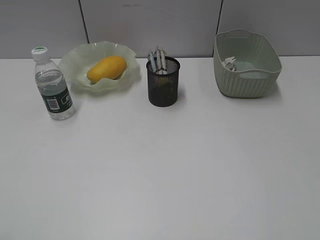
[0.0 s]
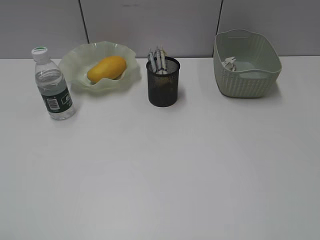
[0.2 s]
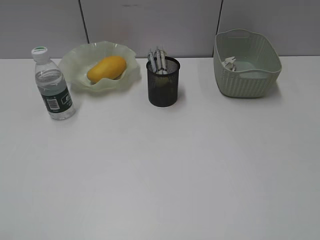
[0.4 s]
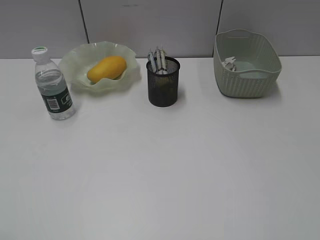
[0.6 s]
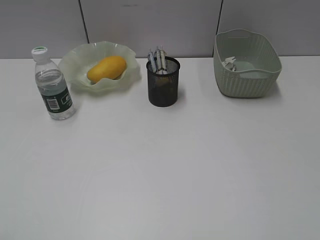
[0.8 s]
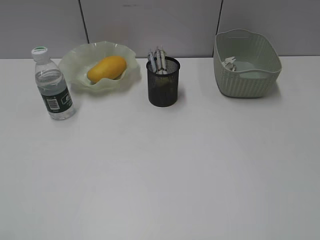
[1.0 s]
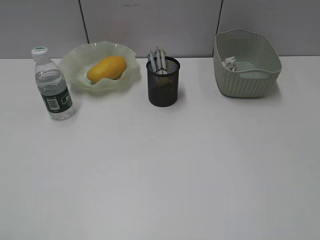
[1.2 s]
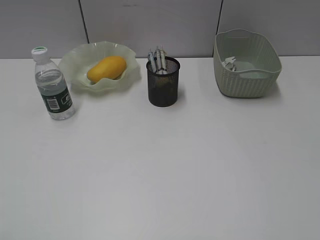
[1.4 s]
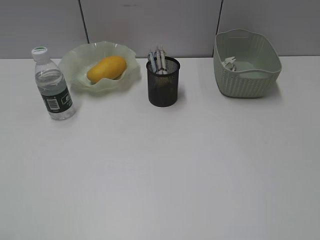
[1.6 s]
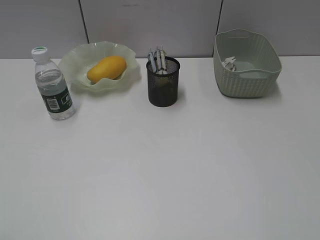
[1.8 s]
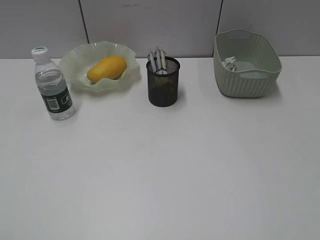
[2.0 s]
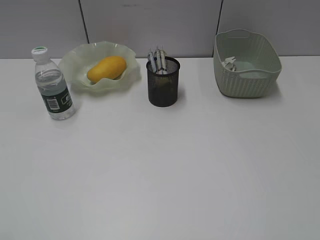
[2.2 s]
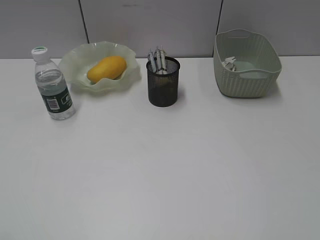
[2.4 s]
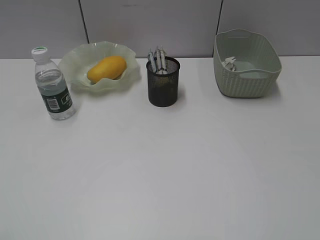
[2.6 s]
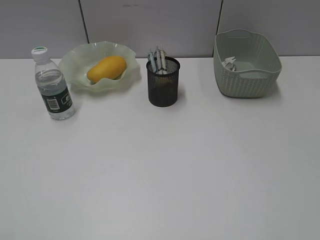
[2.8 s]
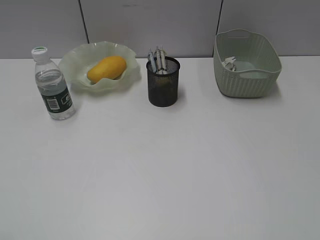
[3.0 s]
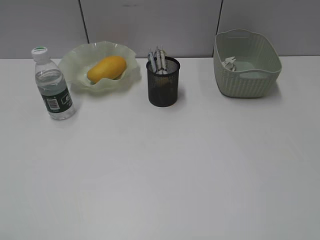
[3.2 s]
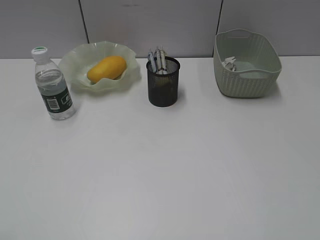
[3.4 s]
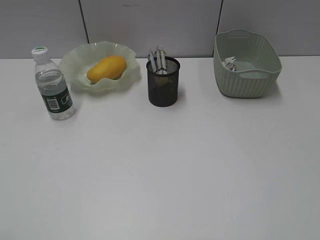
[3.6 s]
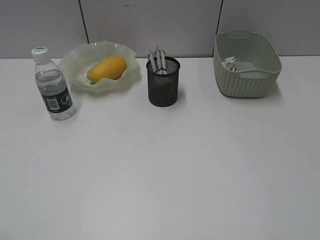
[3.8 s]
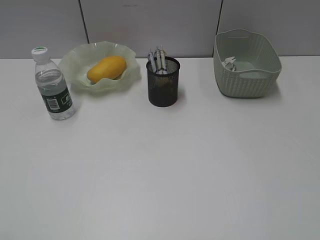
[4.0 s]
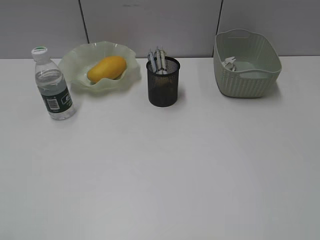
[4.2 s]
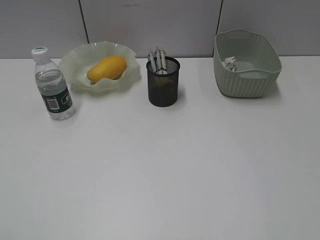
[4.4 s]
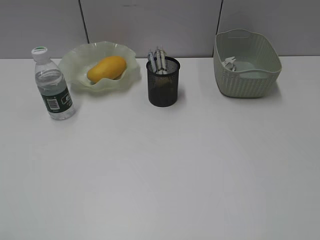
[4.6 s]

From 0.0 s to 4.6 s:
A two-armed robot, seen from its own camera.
From 0.0 s to 4.6 s: Neither gripper changes place.

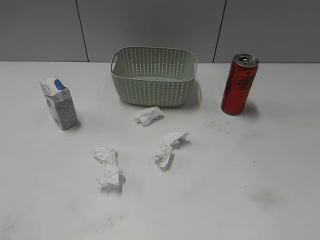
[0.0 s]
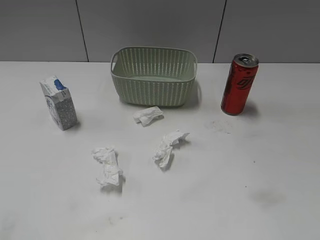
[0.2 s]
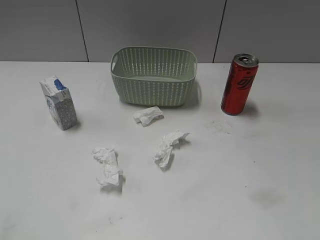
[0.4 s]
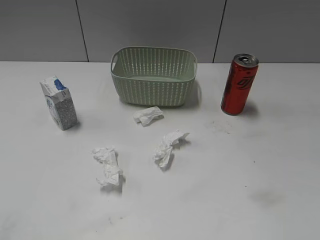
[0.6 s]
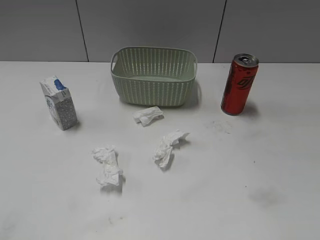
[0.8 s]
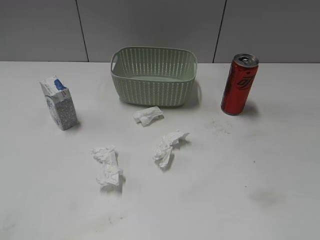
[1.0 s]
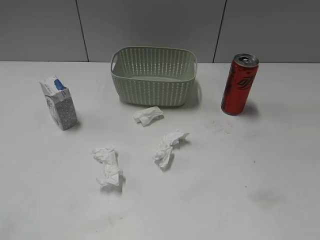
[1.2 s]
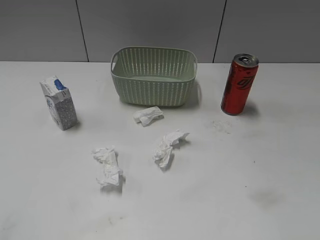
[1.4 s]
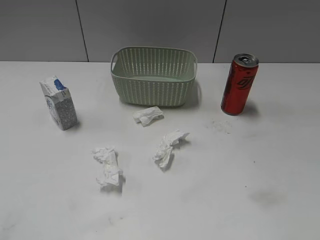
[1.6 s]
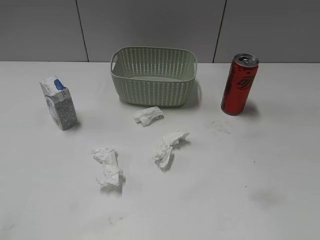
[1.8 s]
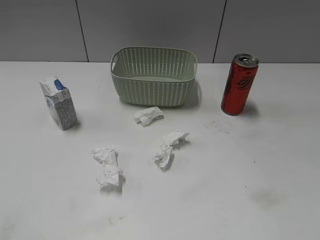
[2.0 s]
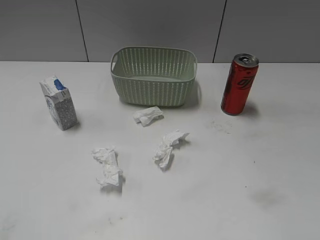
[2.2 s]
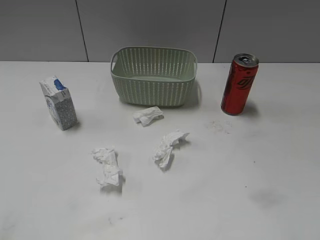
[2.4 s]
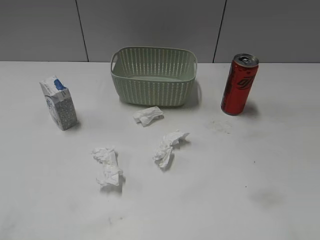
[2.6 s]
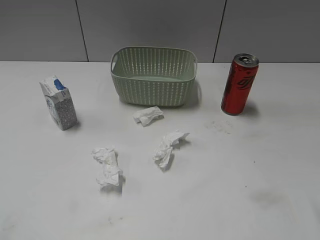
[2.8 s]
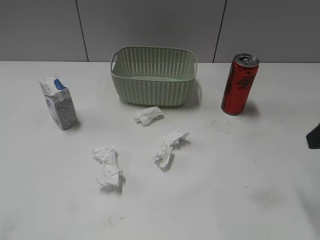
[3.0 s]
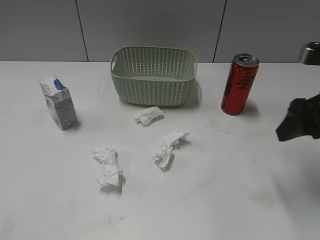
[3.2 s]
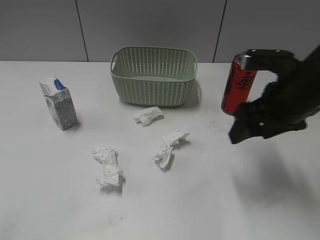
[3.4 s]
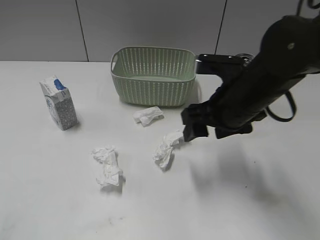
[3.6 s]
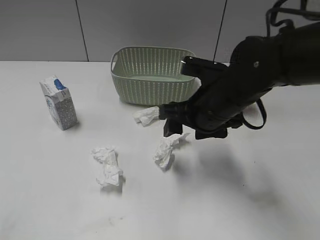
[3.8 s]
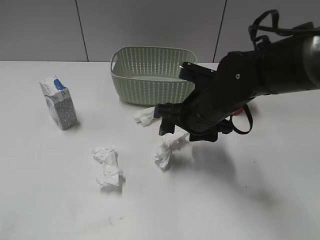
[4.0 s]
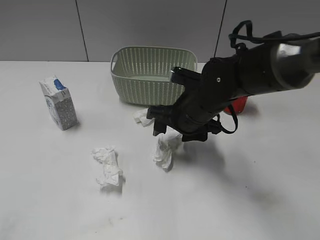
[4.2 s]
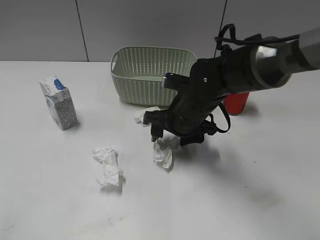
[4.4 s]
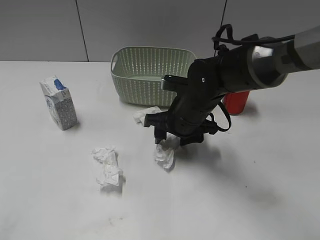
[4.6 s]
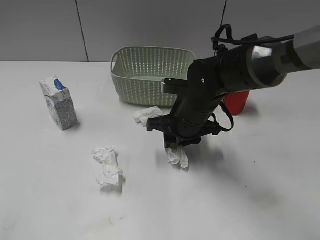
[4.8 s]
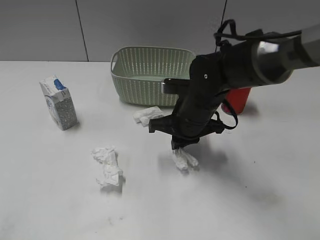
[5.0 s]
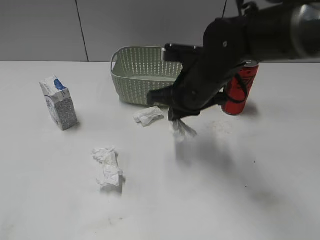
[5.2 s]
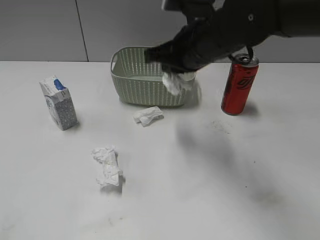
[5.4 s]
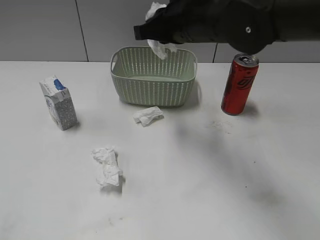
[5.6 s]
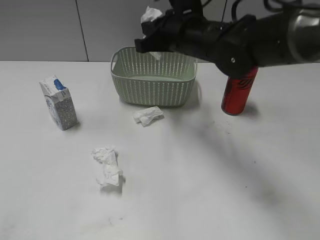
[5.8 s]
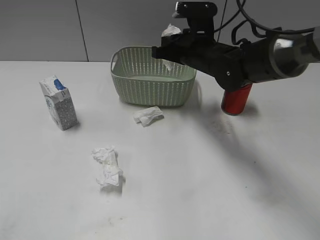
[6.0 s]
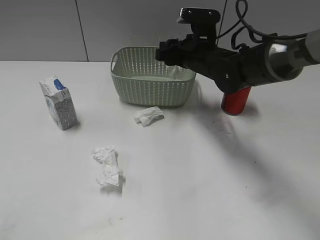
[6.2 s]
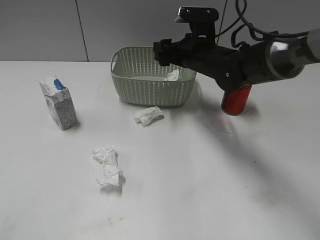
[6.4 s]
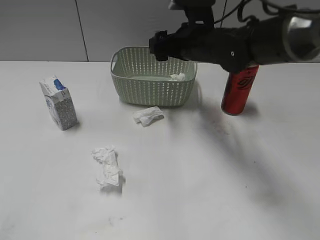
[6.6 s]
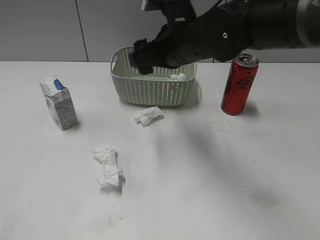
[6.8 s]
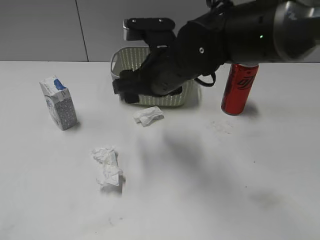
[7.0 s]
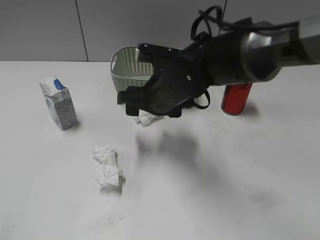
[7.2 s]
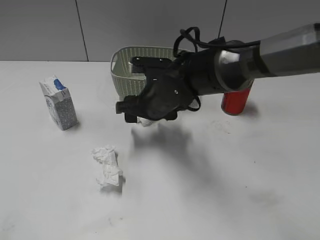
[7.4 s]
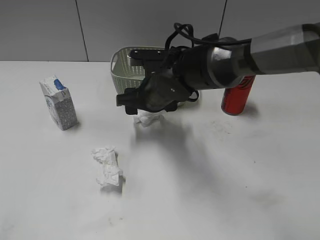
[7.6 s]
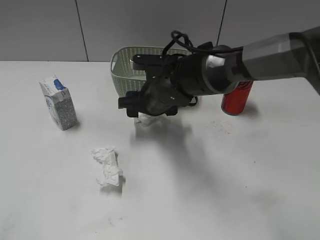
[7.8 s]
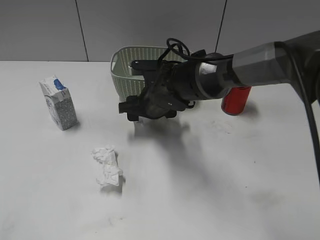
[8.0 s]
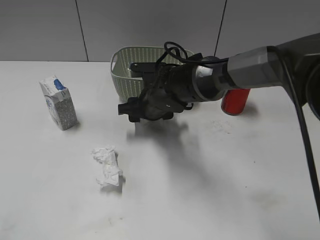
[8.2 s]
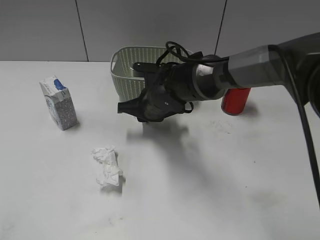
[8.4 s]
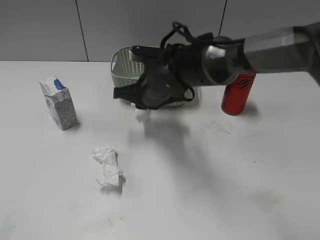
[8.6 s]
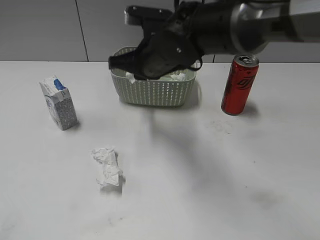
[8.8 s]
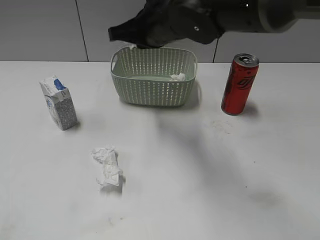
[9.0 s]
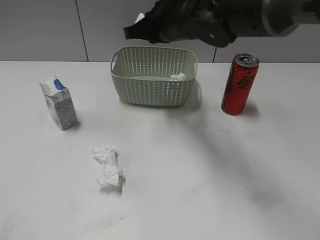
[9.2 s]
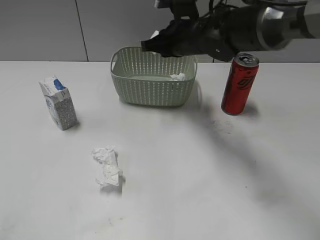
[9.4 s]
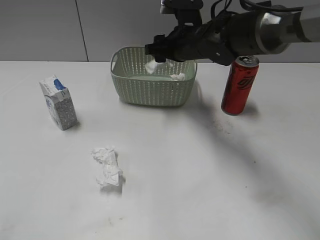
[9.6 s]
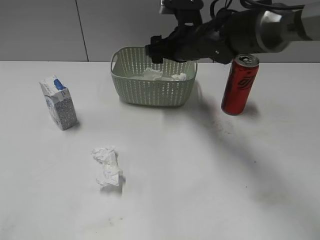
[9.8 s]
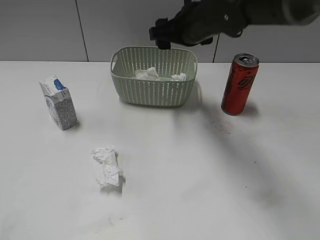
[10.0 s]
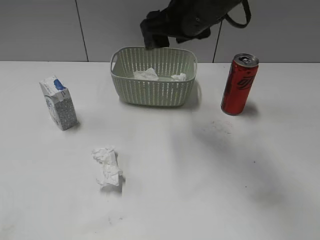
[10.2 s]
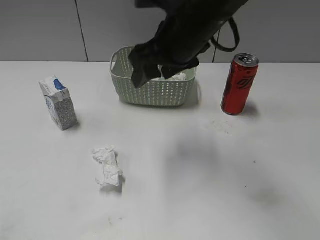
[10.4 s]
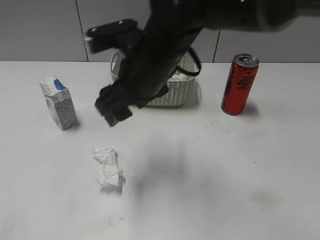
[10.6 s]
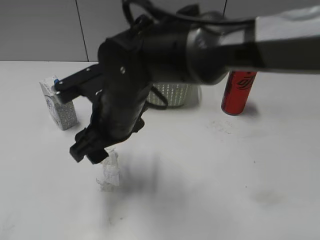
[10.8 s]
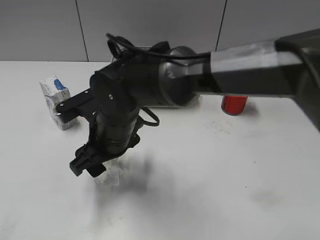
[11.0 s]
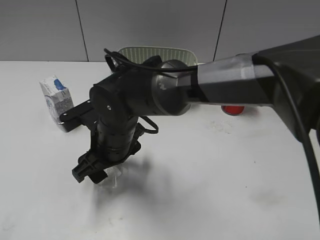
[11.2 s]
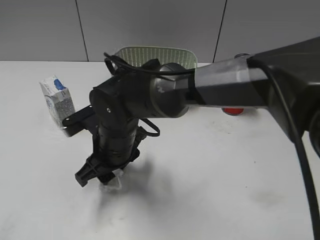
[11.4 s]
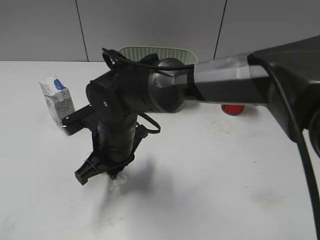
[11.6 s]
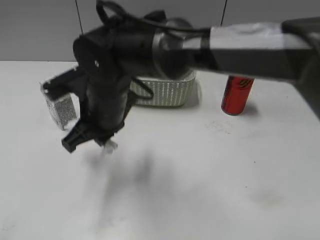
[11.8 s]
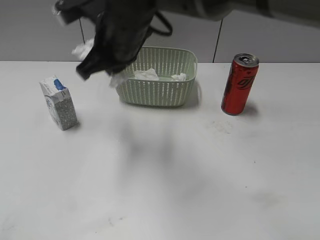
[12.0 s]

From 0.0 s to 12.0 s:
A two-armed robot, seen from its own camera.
Step, from 3.0 s to 5.0 s: Grasp the waste paper with right gripper.
Step, from 5.2 s to 6.6 s: Place the waste paper in the basket with right gripper.
Step, from 6.8 s to 8.6 s: Grasp the waste paper with right gripper.
Step, from 8.8 s to 9.8 s: Place the waste paper in the basket with right gripper.
Step, from 10.0 s to 11.6 s: Grasp the waste paper with right gripper.
From 1.6 s to 3.0 s: The right gripper goes about 20 cm forward.
From 3.0 s to 4.4 s: The right gripper goes some 30 cm to the left, downward and forward.
From 4.4 s to 6.0 s: The right gripper moves forward and upward, roughly 10 cm, and closes.
From 6.0 s to 7.6 s: The right gripper moves to the left and backward, about 10 cm, and opens.
From 7.6 s to 9.0 s: The right gripper heads upward, covering roughly 10 cm, and closes its fingers.
From 9.0 s to 10.4 s: The right gripper travels downward and back again, some 5 cm each way, and opens its fingers.
From 10.4 s to 12.0 s: The right gripper is displaced to the left by approximately 10 cm, travels downward and back again, some 15 cm each way, and closes.

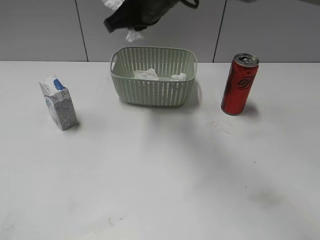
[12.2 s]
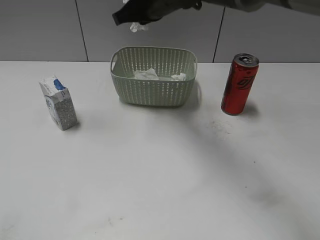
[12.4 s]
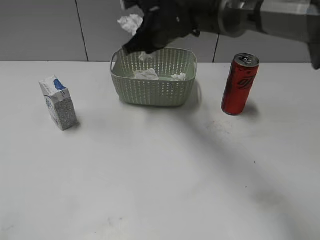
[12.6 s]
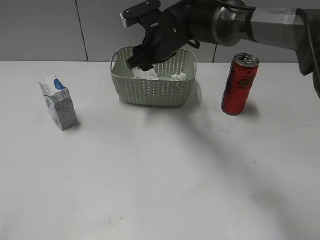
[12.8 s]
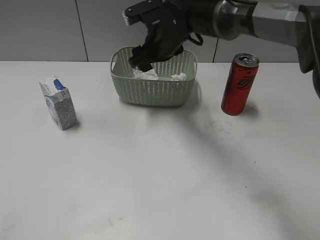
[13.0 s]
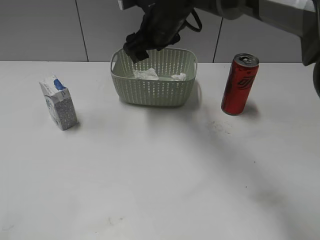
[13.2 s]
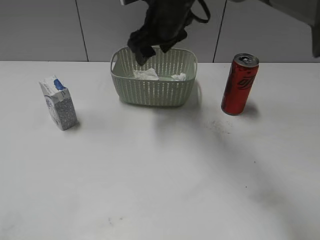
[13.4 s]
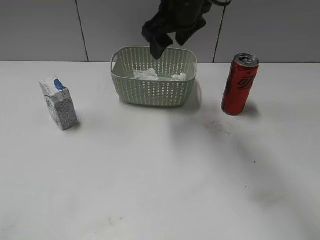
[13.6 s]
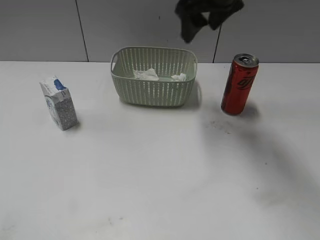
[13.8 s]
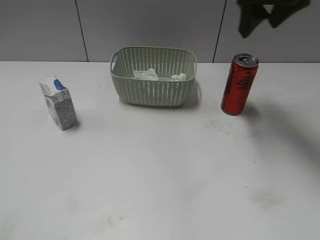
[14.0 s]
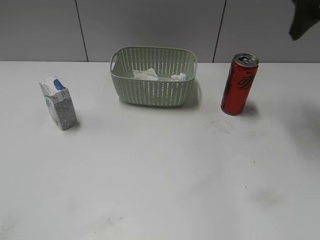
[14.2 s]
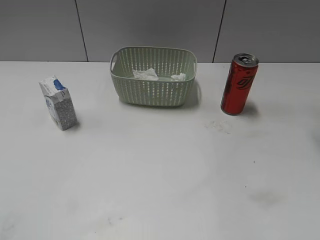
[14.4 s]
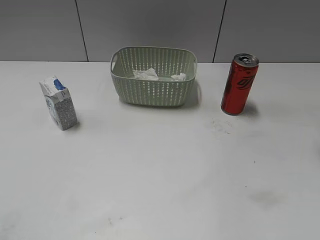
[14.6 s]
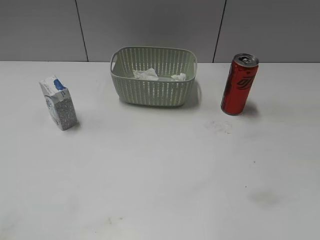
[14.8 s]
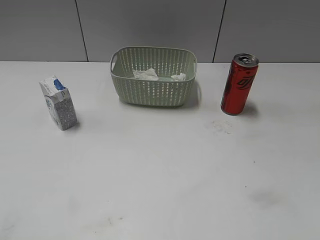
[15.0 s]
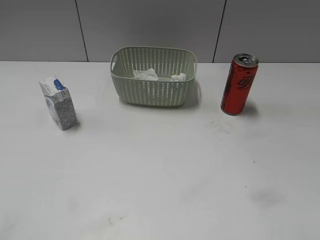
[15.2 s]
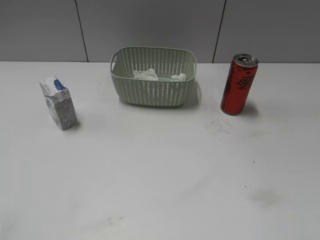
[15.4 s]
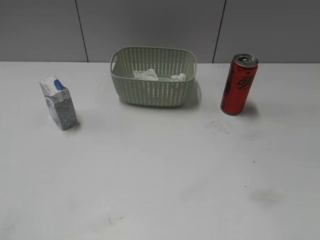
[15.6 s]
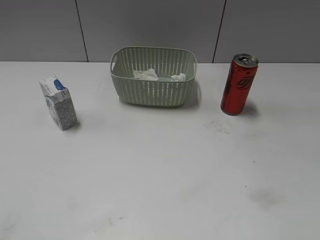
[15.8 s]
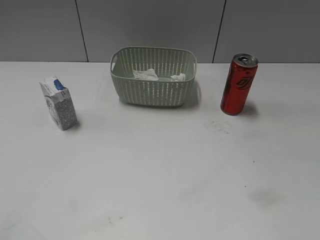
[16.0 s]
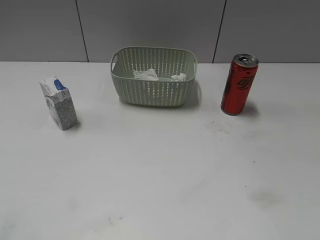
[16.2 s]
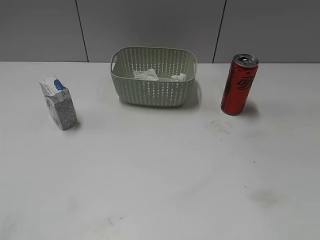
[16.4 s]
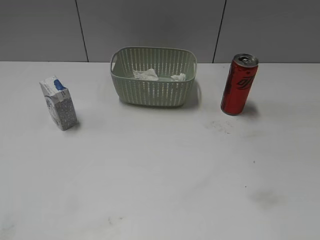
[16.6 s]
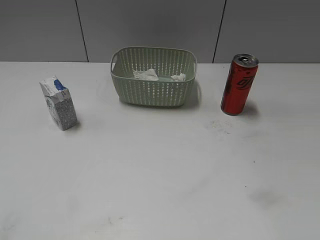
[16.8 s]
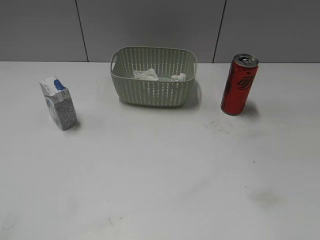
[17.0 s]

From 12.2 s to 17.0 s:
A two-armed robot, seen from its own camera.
Step, from 12.2 s to 13.0 s: Place the waste paper in the basket with right gripper.
From 12.2 s to 13.8 s: The right gripper heads to the right, covering roughly 10 cm, goes downward and returns, roughly 10 cm each way, and opens.
From 13.8 s to 15.4 s: The right gripper is displaced backward and to the right by approximately 40 cm.
